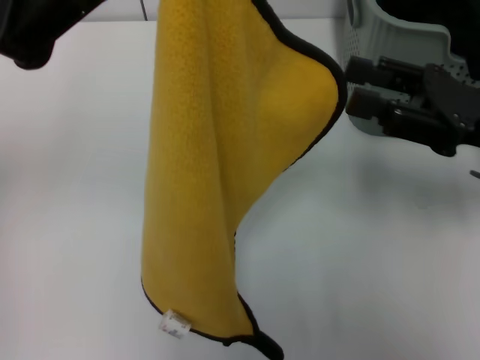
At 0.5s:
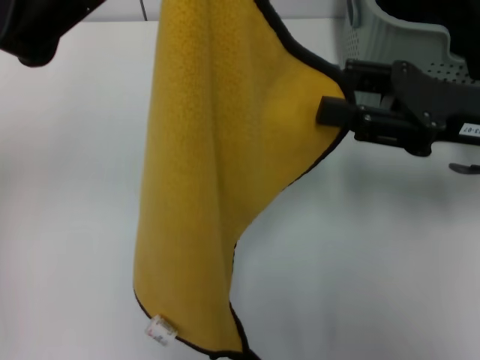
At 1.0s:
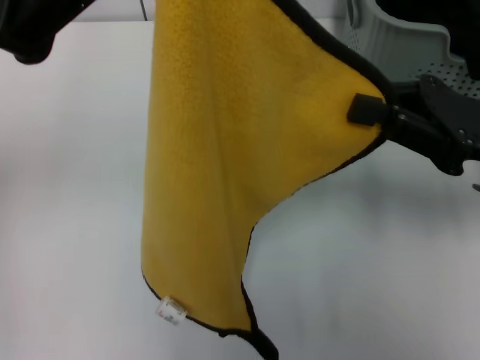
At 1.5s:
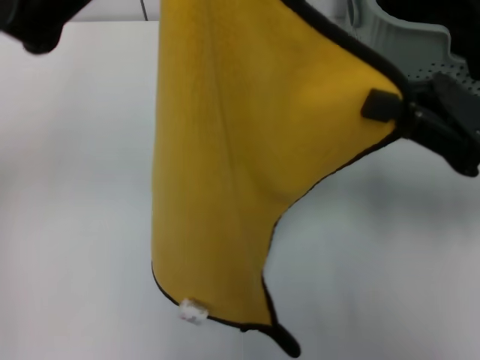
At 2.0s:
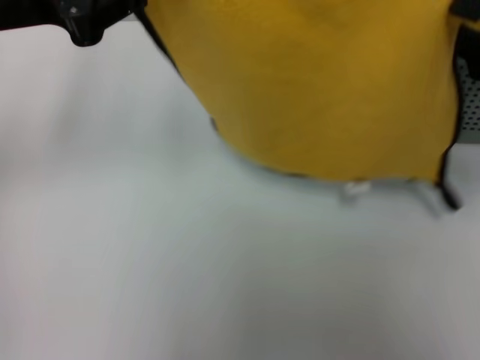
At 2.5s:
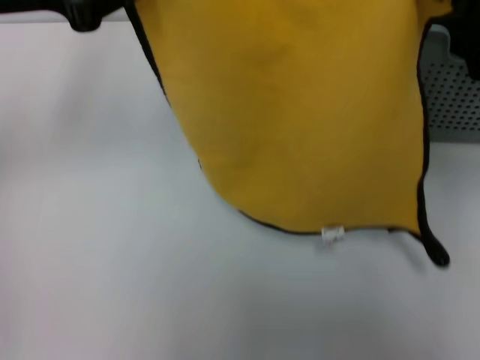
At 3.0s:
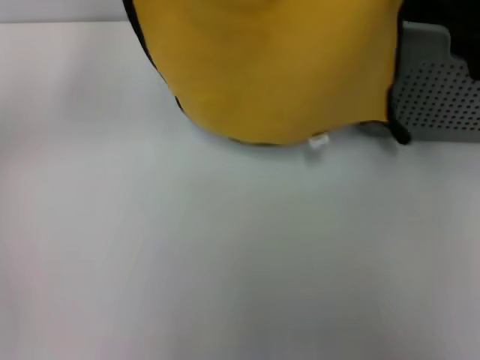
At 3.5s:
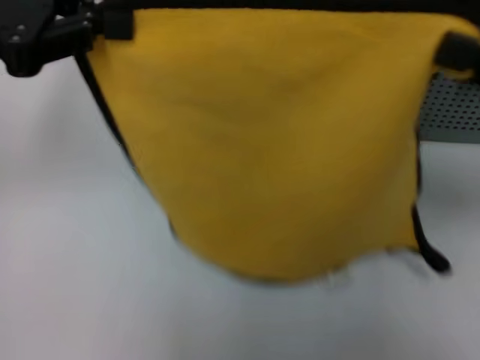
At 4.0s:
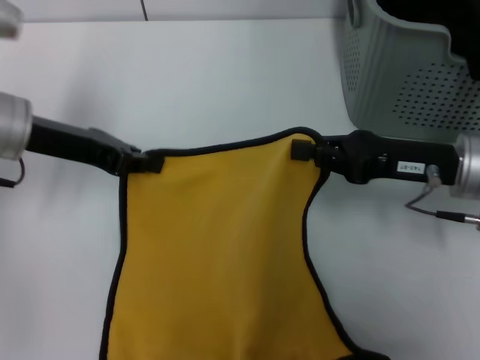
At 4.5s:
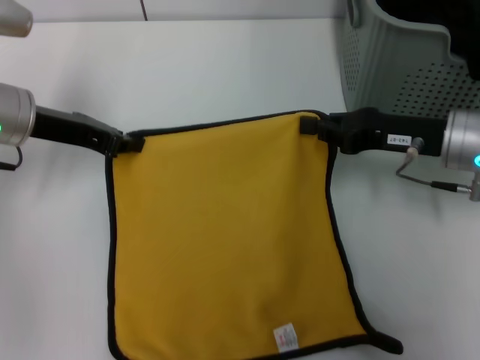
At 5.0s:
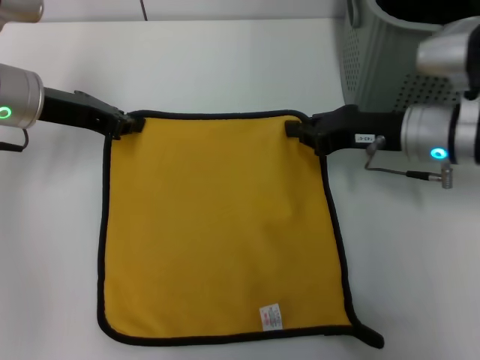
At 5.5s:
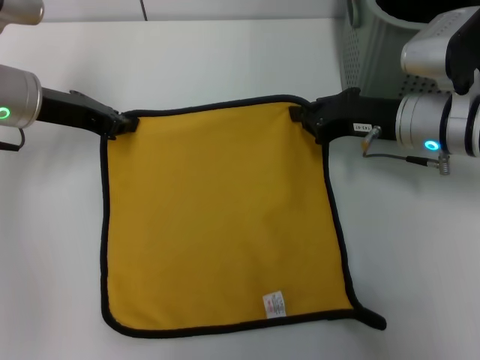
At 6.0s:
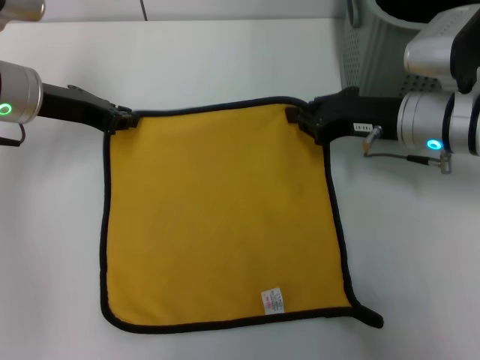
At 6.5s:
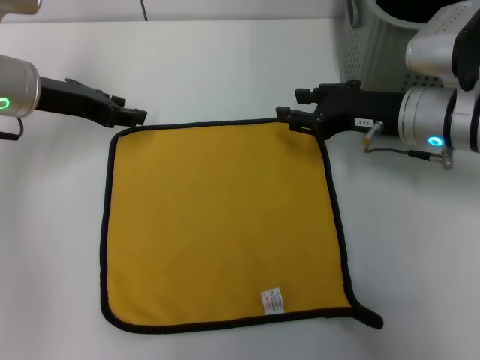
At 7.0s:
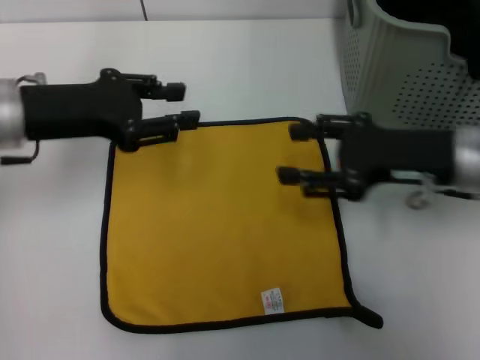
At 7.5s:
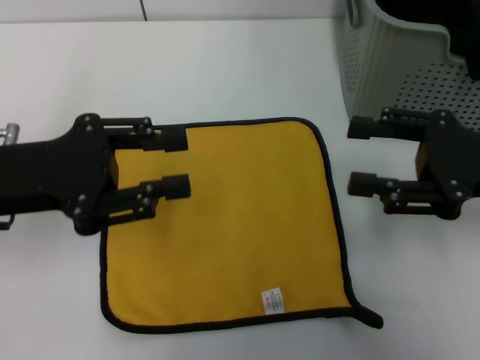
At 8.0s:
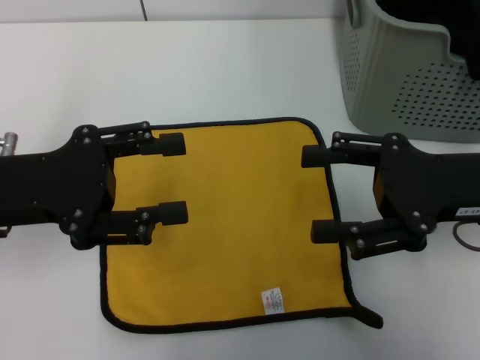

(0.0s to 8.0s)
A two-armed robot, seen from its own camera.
Task of the whole recording: pick up the towel from the storage box and lay it flat on the table.
Step, 0.0s - 6.0s: Spread the towel flat with the left gripper.
0.0s - 2.0s: The right gripper is displaced upward by approximately 5 cm, and closes up.
2.0s - 4.0s: The left gripper heads downward, covering approximately 10 cm. The right gripper heads downward and to the left, covering approximately 15 cm.
4.0s - 6.0s: The right gripper moves forward, approximately 5 cm.
6.0s - 8.0s: The right gripper shifts some 10 cm backward and to the right, and opens up, while the left gripper is displaced backward by about 15 cm, and opens.

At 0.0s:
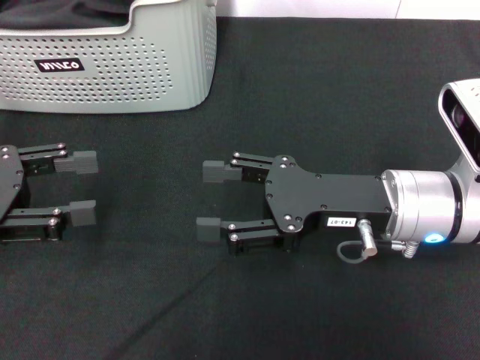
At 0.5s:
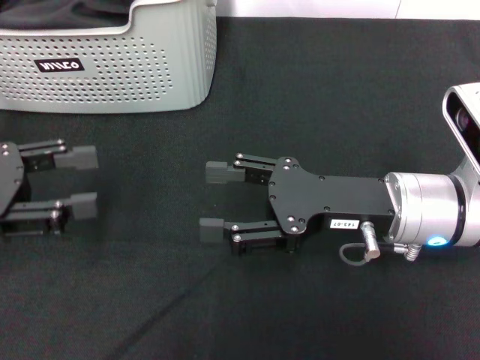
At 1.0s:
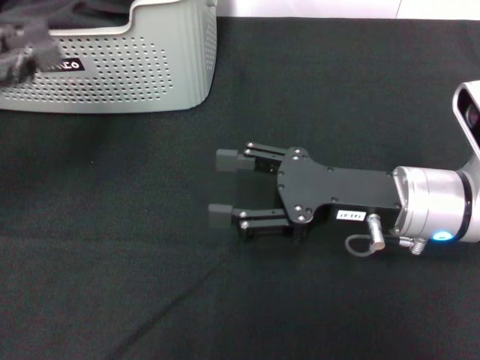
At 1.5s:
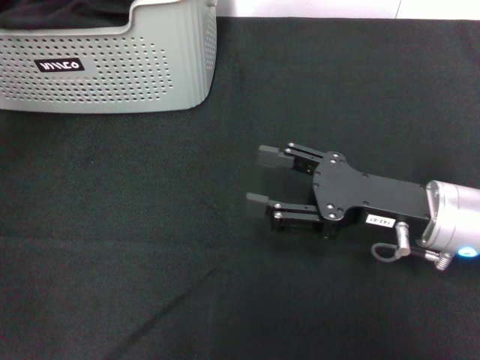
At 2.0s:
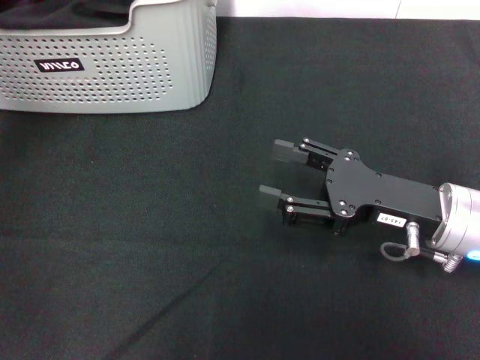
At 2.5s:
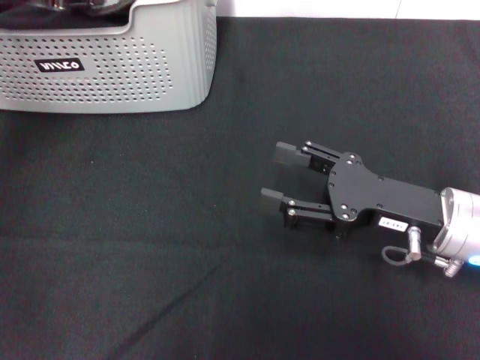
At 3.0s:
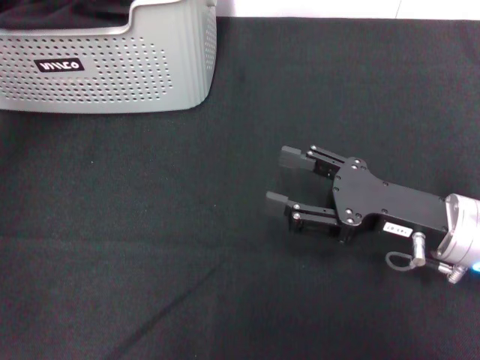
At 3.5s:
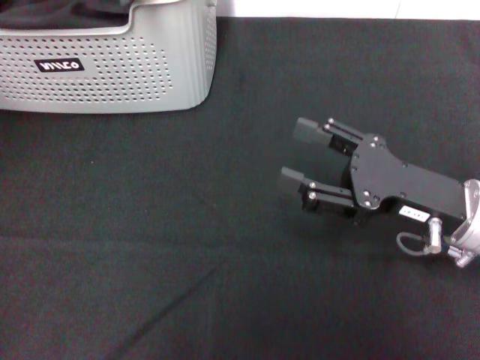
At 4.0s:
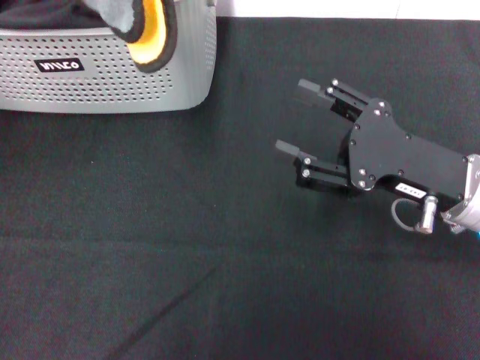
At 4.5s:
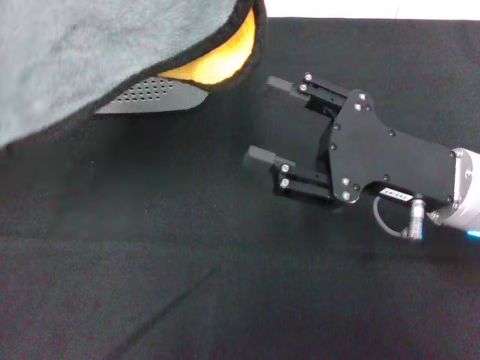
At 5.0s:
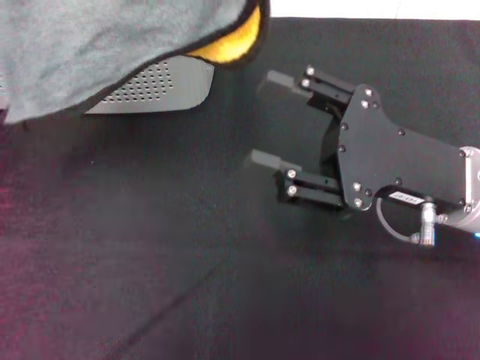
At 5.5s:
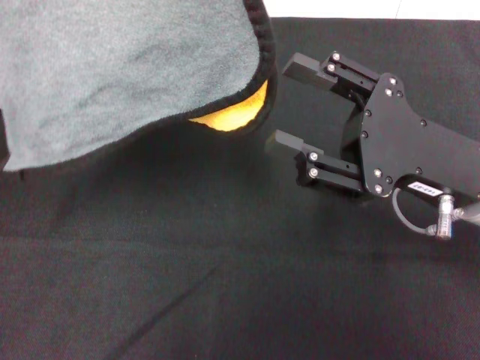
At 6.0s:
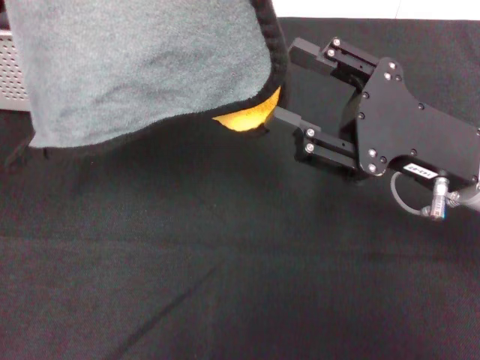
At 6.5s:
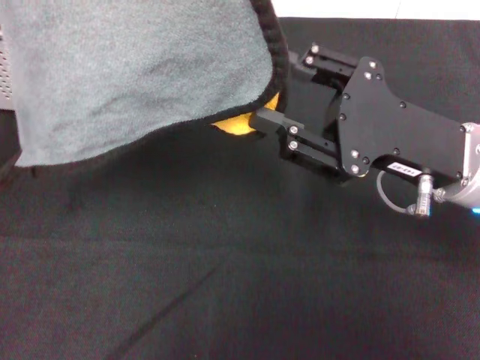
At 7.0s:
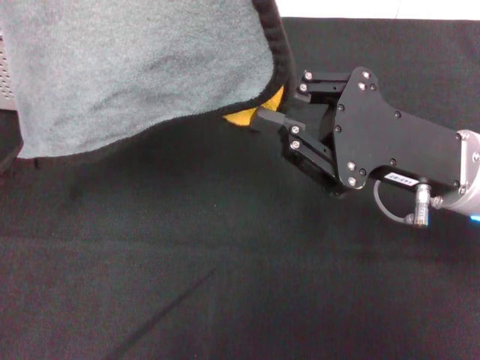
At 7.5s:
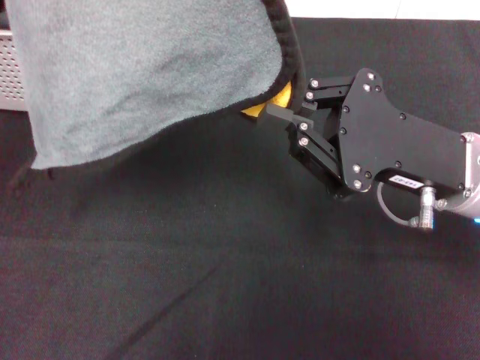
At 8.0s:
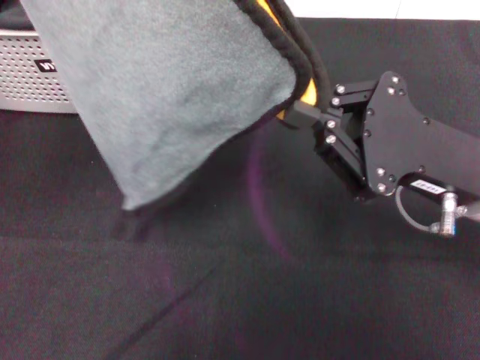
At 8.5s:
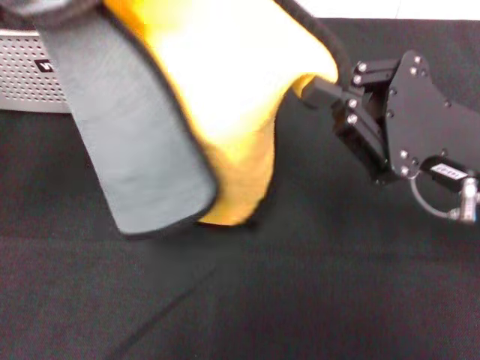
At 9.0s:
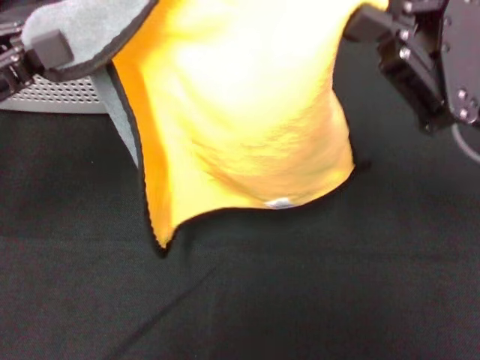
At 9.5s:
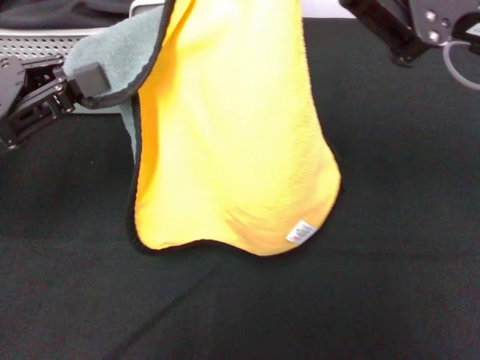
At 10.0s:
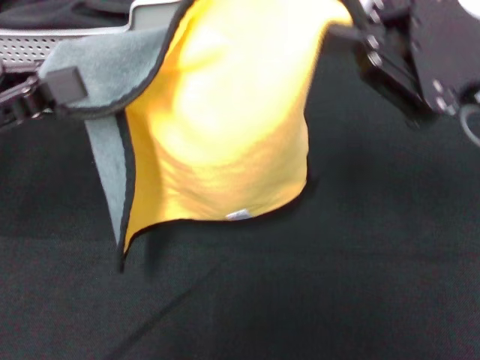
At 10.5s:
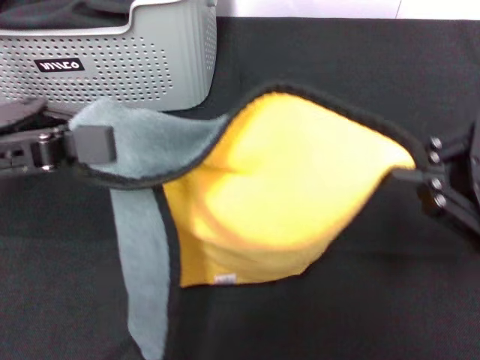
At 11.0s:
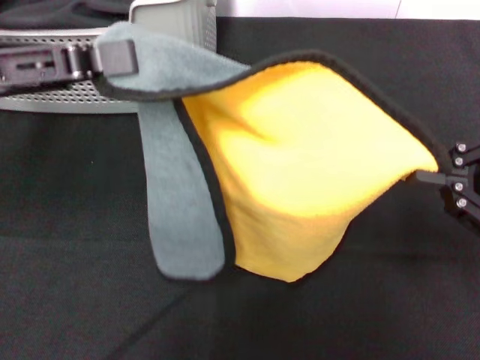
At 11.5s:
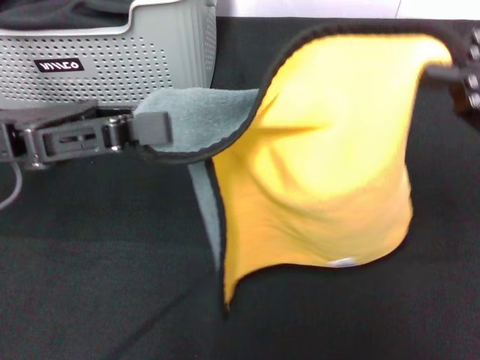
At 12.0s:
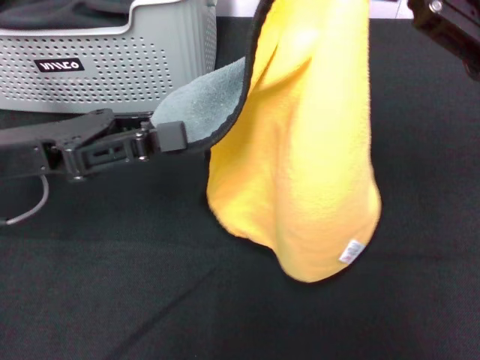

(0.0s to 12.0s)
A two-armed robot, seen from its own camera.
Task of the whole recording: pick up the towel from the storage box and lay it flat on the black tablecloth.
Step, 0.0s - 2.5s: Pick up a towel with the left gripper.
Step, 3.0s - 7.0s: Spread the towel flat with the left gripper.
0.0s - 2.0s: The right gripper changes place by some 5 cm. The left gripper shifts about 20 cm forward, upward and to the right.
2.0s - 4.0s: The left gripper shifts roughly 10 cm backward and upward, and closes its fingers.
6.0s - 8.0s: The right gripper closes, while the left gripper is displaced downward by approximately 5 cm.
8.0s - 10.0s: The right gripper moves upward, about 10 cm, while the left gripper moves downward, approximately 10 cm.
10.0s - 12.0s: The left gripper moves to the right, some 5 cm; the right gripper moves upward, some 5 cm.

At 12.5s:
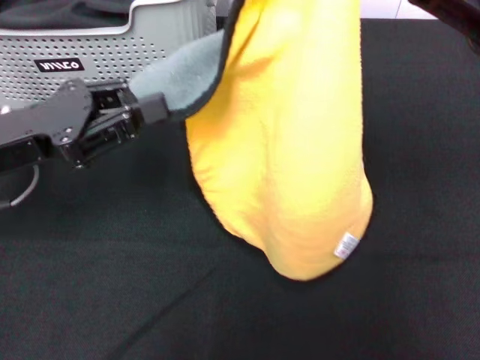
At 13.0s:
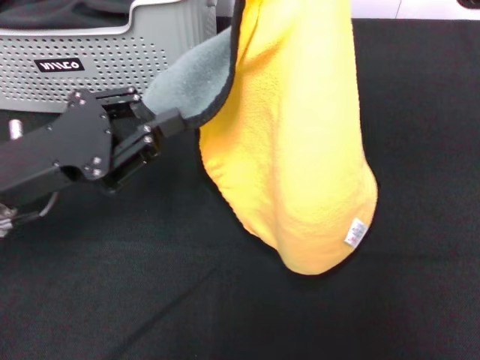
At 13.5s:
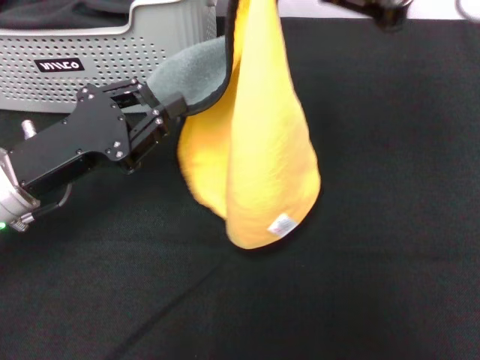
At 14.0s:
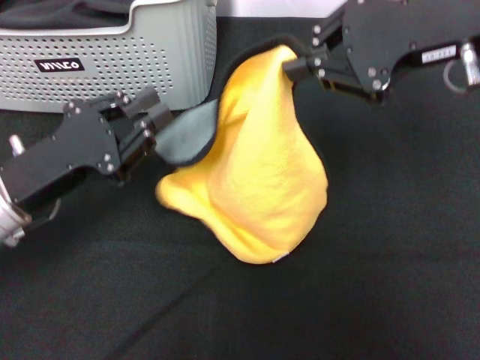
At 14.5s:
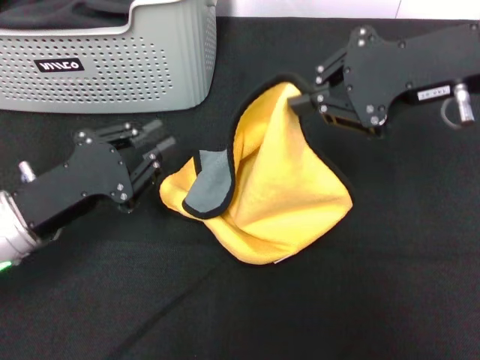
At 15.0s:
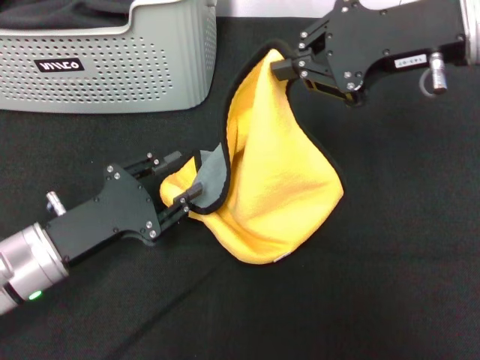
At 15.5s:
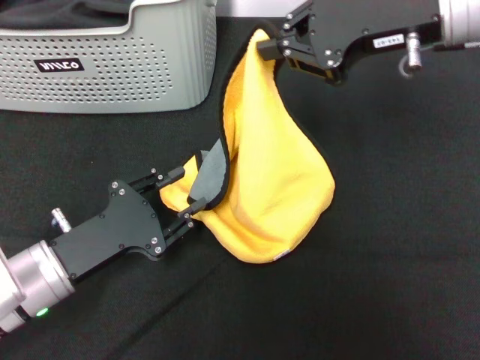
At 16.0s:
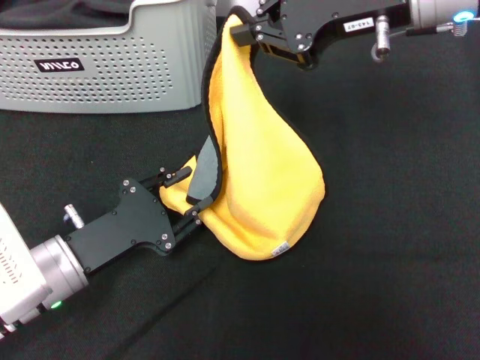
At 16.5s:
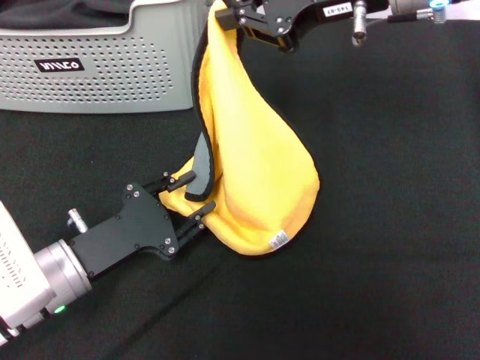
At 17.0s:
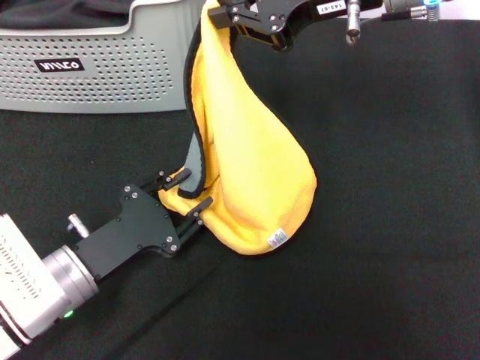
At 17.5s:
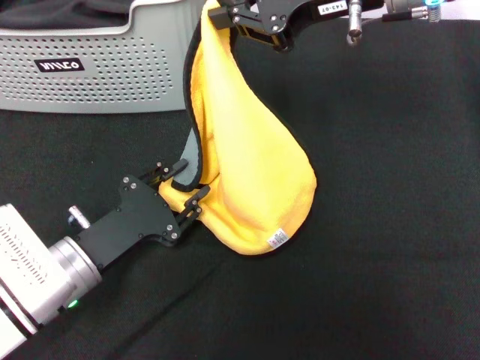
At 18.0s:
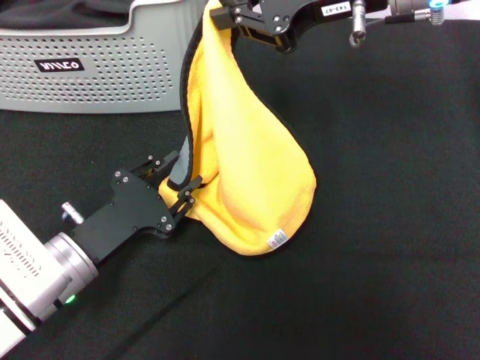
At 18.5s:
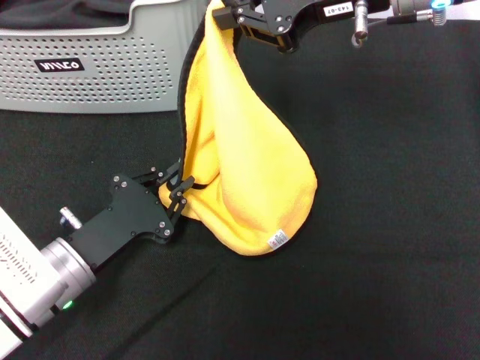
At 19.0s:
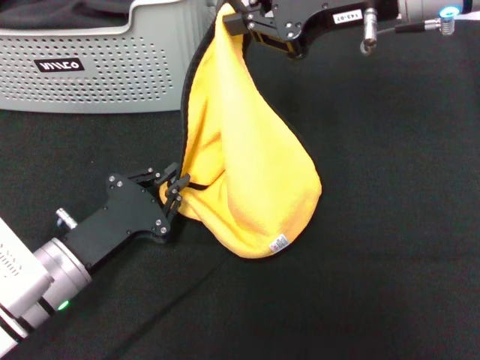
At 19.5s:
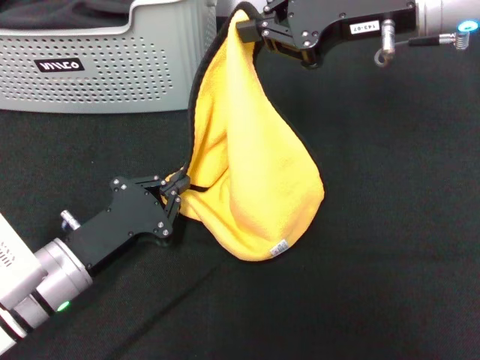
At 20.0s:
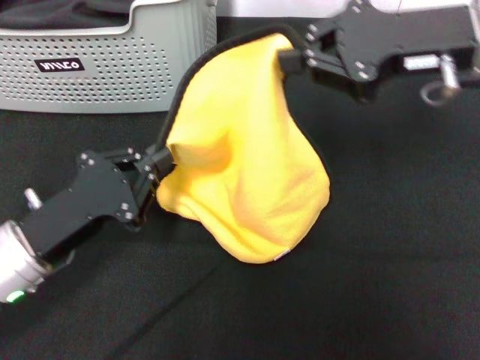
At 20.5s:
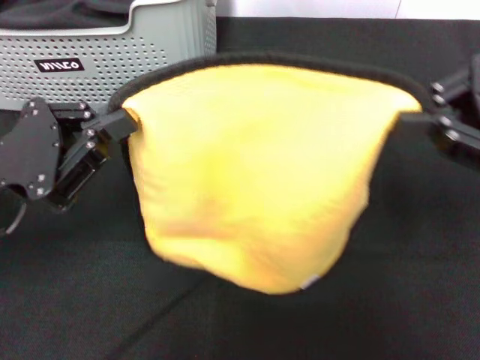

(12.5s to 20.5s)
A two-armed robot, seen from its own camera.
Task of the whole recording: pick up the towel from the storage box and lay it flat on the black tablecloth.
12.5s - 14.5s: Both grippers travel together downward, roughly 5 cm.
14.5s - 16.5s: The left gripper moves downward, approximately 5 cm; the right gripper goes approximately 10 cm to the left and forward.
16.5s - 18.5s: The grippers move only a little.
18.5s - 20.5s: The right gripper moves to the right and backward, approximately 20 cm. The left gripper goes about 15 cm upward and to the left.
